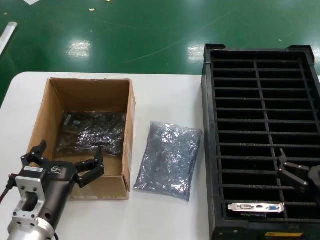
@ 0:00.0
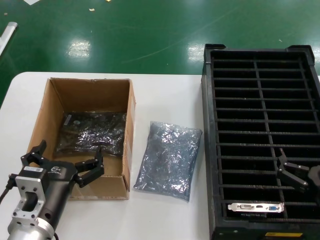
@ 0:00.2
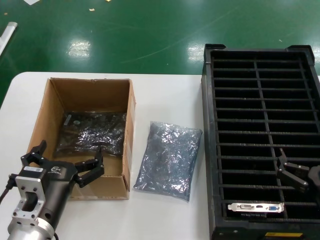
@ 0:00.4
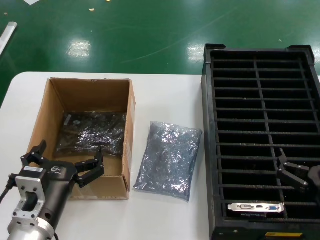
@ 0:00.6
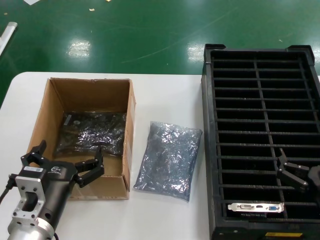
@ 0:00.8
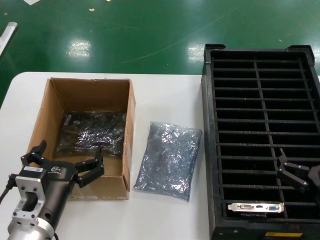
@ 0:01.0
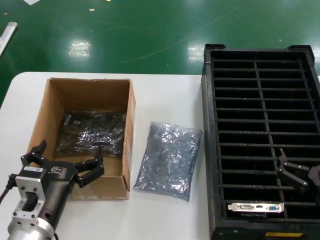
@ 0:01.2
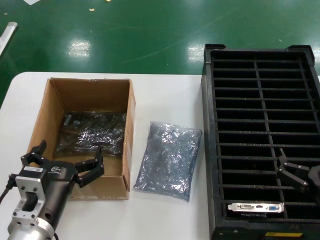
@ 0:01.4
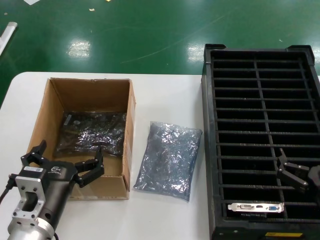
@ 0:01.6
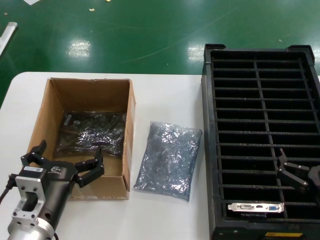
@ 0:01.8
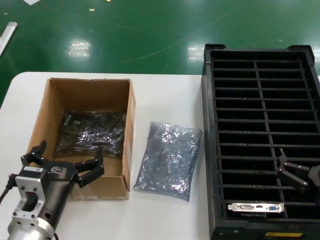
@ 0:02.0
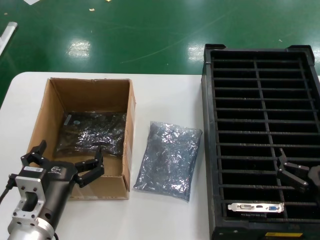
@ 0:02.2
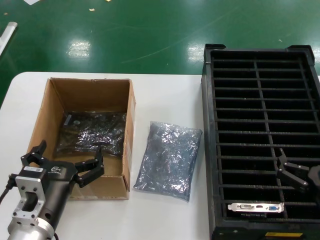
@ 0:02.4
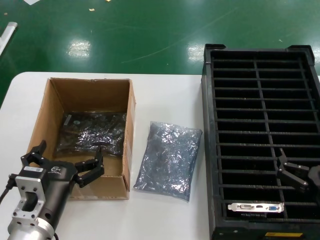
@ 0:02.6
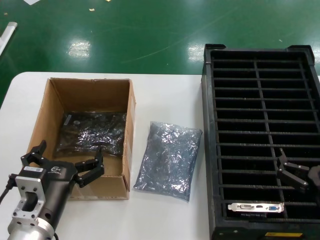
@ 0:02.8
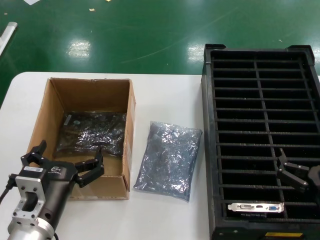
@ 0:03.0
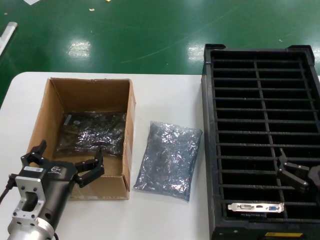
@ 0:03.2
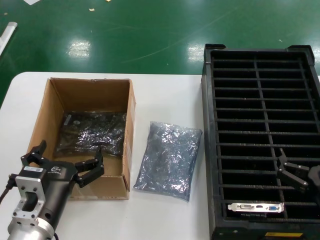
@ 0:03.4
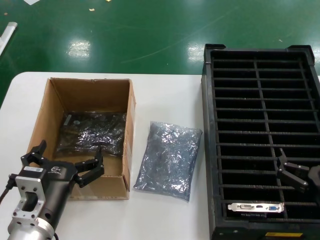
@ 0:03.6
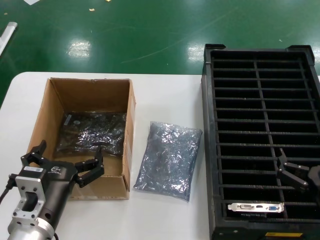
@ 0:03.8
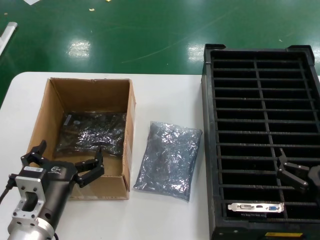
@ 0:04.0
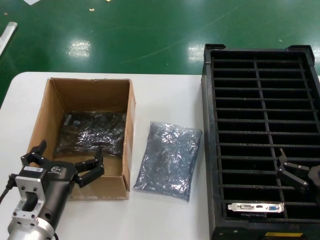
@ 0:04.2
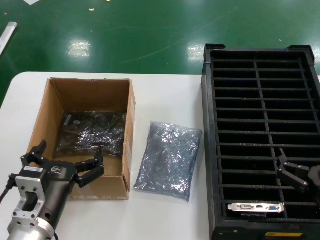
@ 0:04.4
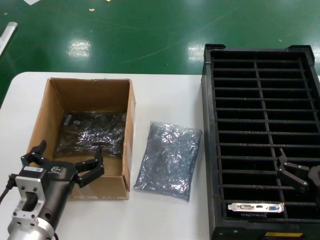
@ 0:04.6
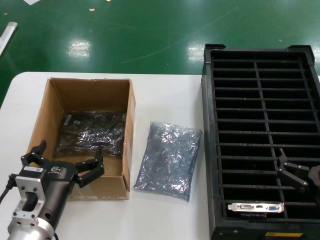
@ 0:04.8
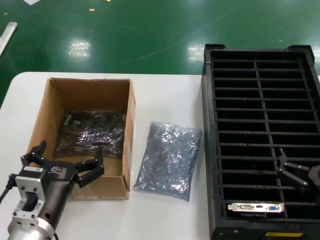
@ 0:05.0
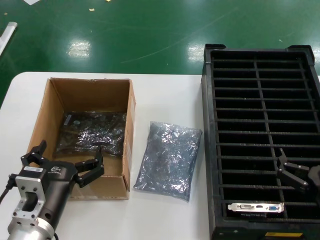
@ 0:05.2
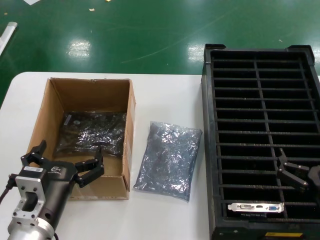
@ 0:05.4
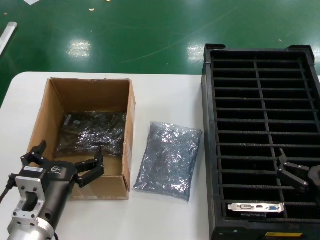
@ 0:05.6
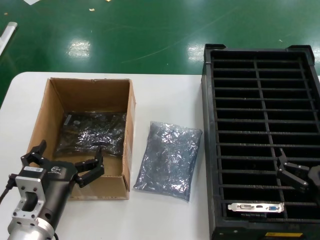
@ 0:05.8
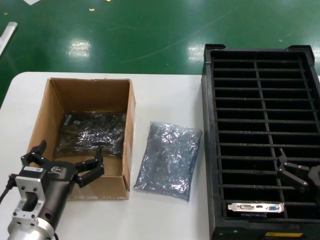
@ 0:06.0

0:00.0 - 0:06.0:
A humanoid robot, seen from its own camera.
Task of the whole recording: take out graphics card from box remove packaging put into black container.
0:00.0 - 0:06.0: Both hands stay put.
